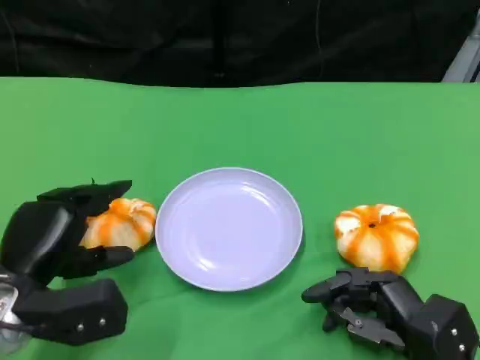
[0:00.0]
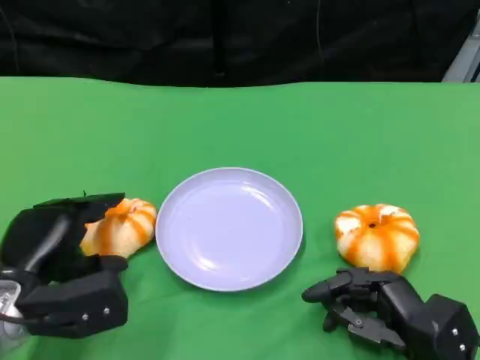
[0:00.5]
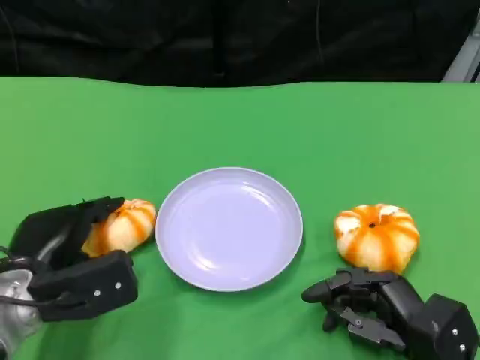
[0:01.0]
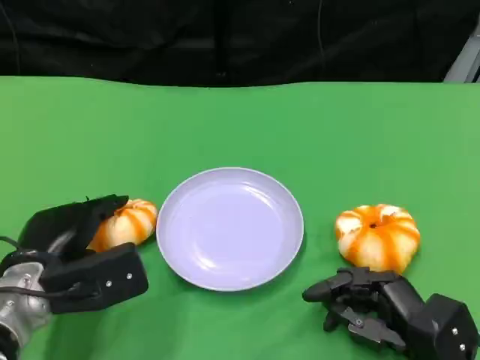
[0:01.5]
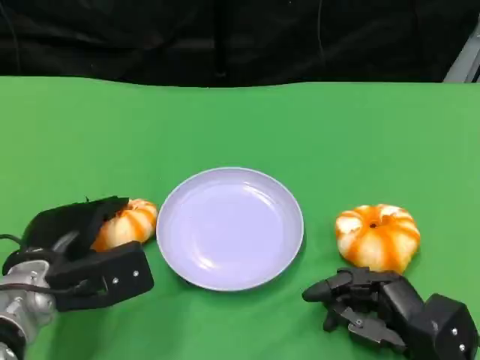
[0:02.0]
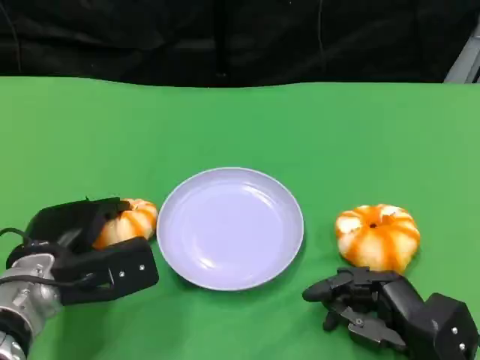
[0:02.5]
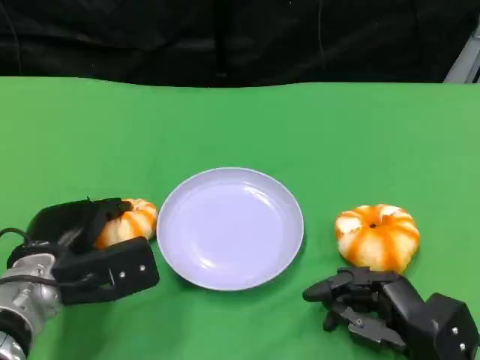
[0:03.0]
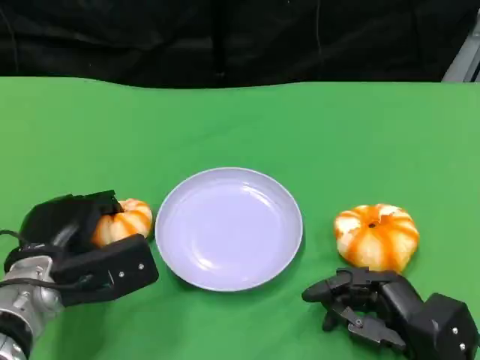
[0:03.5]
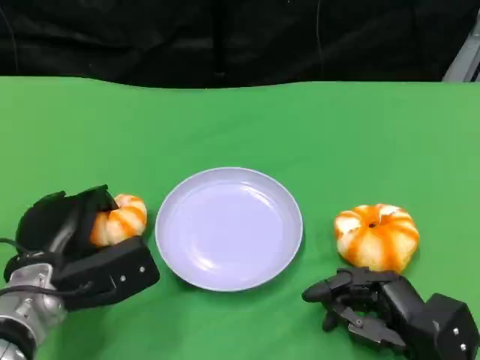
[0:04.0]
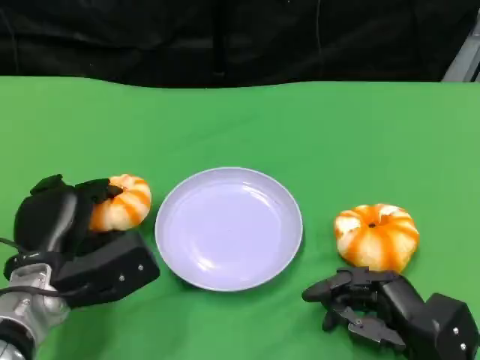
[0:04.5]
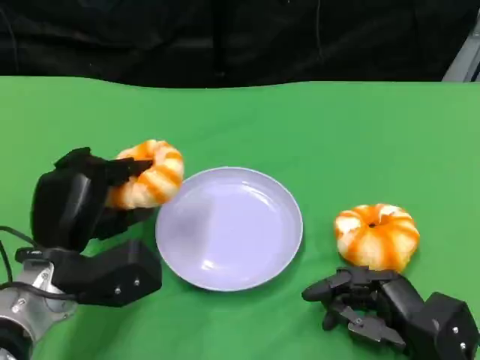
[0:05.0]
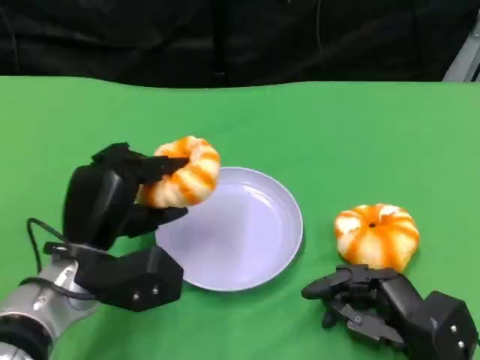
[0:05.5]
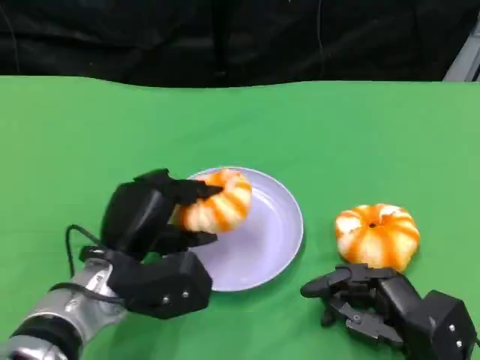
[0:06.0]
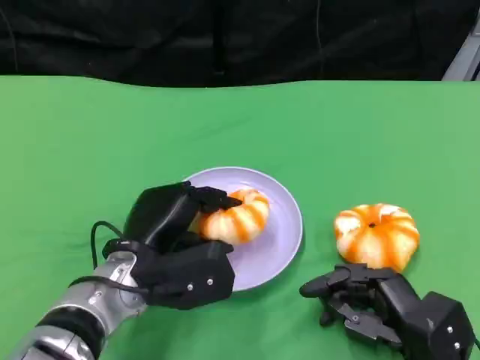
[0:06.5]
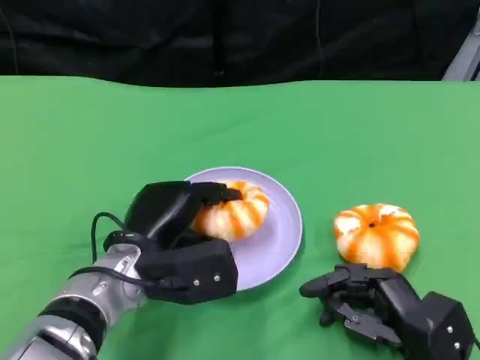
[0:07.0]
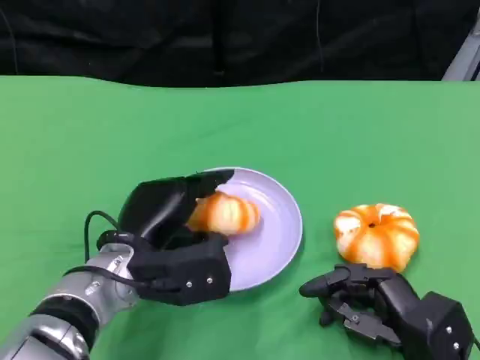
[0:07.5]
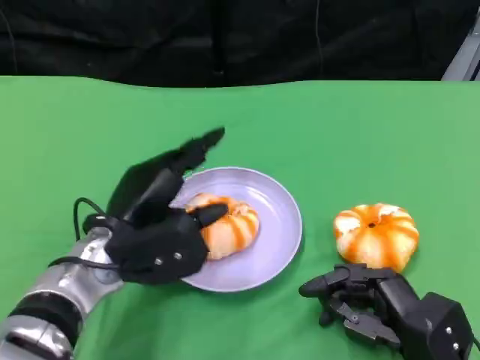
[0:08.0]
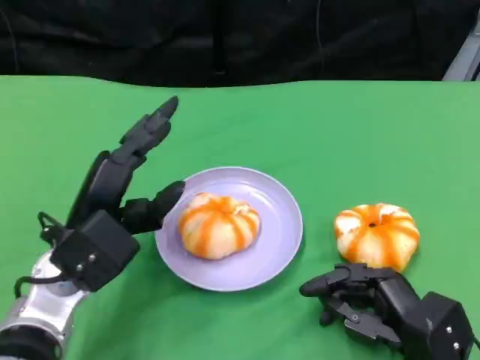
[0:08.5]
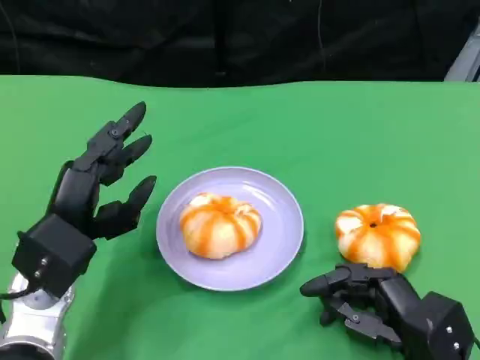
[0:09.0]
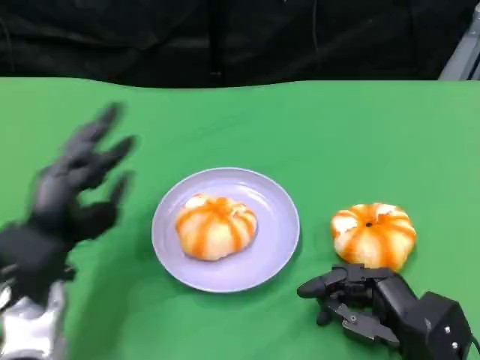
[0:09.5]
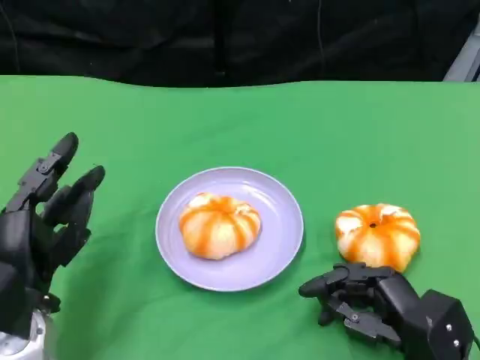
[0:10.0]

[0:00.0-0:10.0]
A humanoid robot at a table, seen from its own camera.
Task of the whole recording: Grasp the bread from the table and place it into the plate.
0:02.0 to 0:04.0: The hands stay close to where they were, moving slightly.
0:04.0 to 0:06.0: The left hand moves to the right, roughly 5 cm.
0:06.0 to 0:08.0: The hands move only a little.
0:08.0 to 0:10.0: The left hand goes about 10 cm to the left and backward.

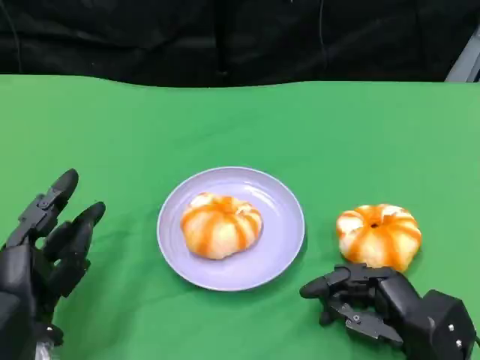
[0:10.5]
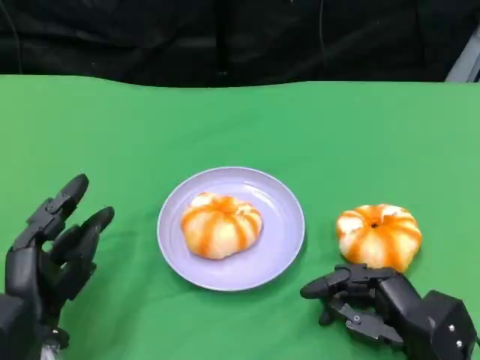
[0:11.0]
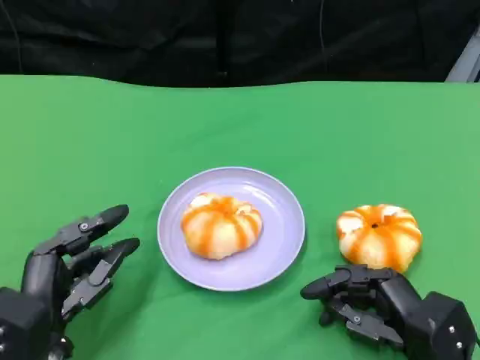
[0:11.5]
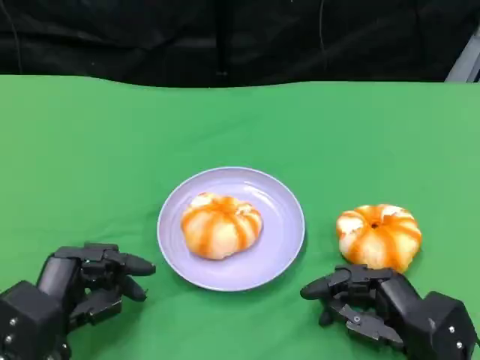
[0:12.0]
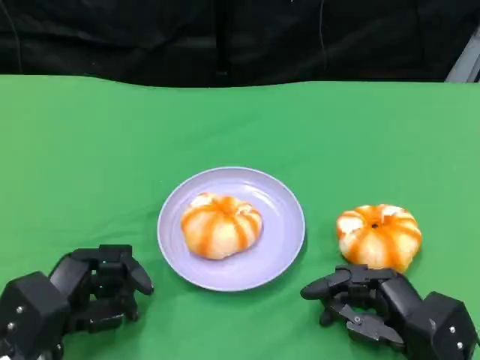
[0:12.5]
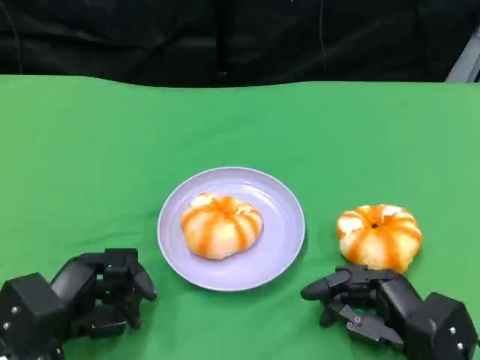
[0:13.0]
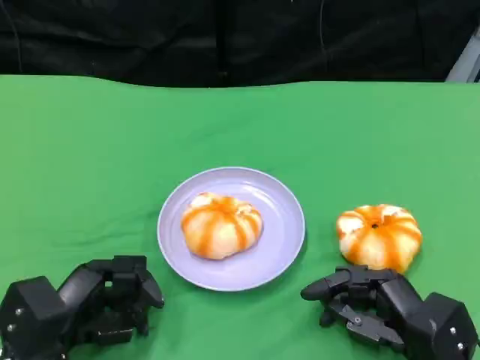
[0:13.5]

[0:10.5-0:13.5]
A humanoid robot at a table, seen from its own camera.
Task of the whole recording: Grasp the bread from the table and place it into the plate.
0:12.0 to 0:13.5: There are only small adjustments of the hands.

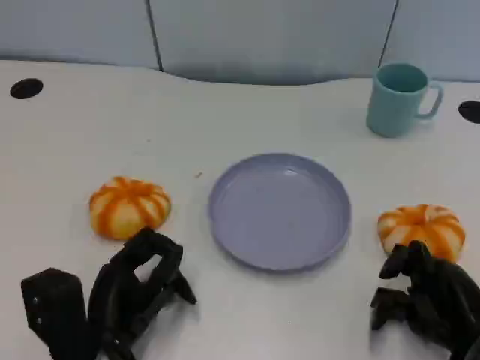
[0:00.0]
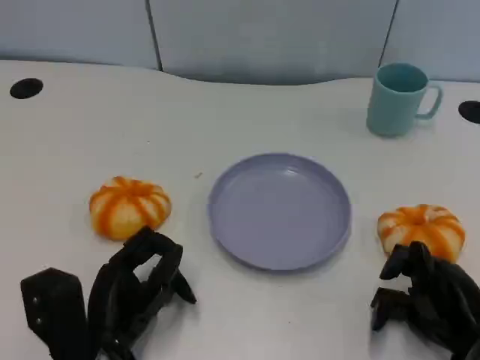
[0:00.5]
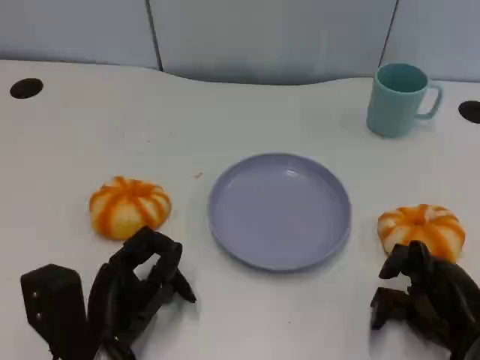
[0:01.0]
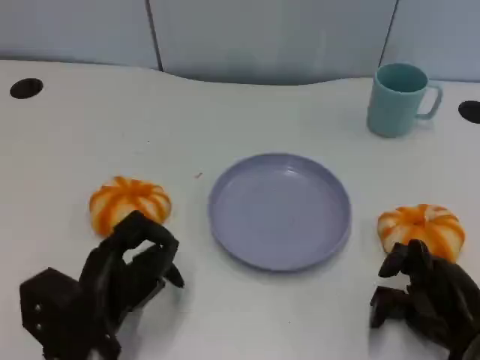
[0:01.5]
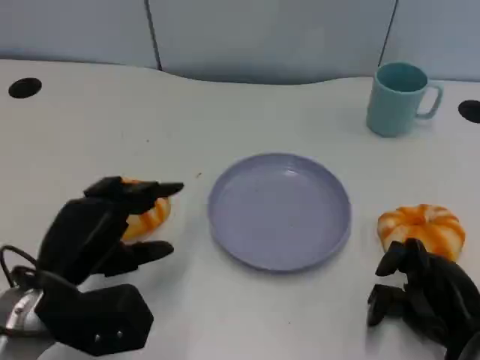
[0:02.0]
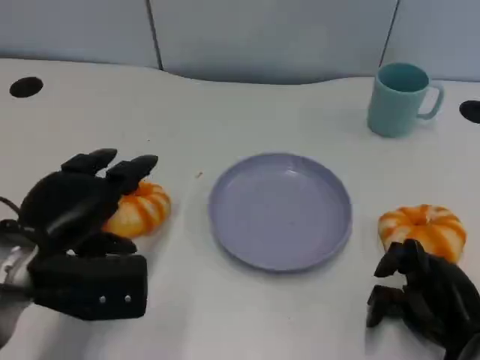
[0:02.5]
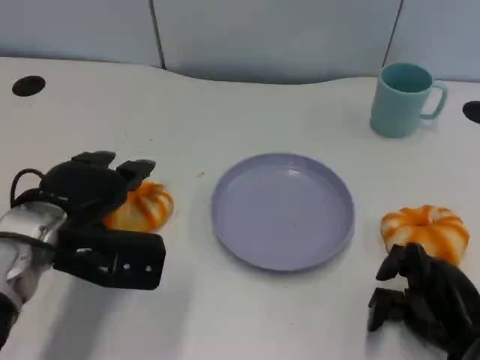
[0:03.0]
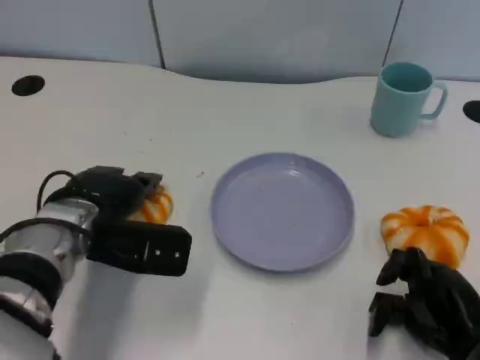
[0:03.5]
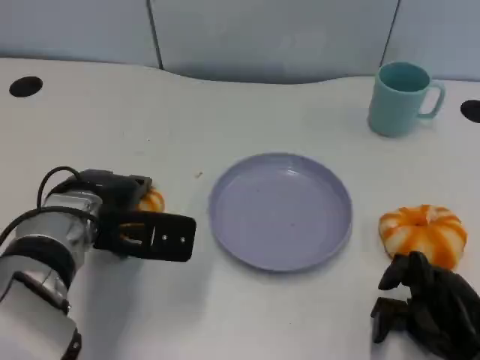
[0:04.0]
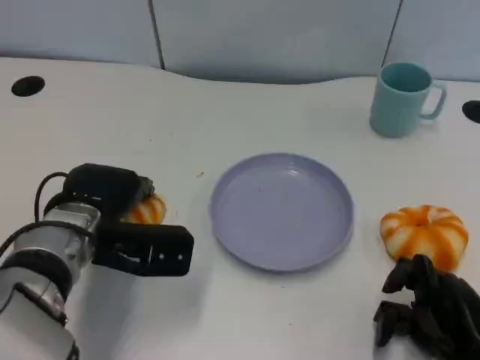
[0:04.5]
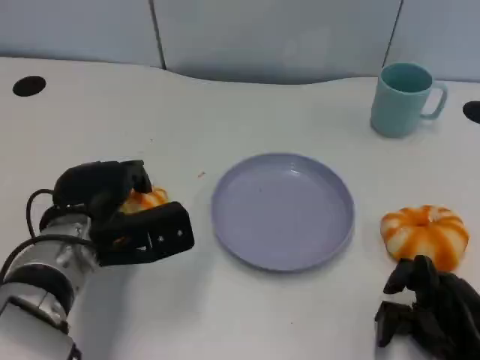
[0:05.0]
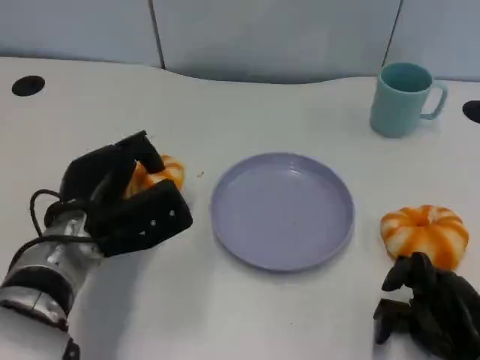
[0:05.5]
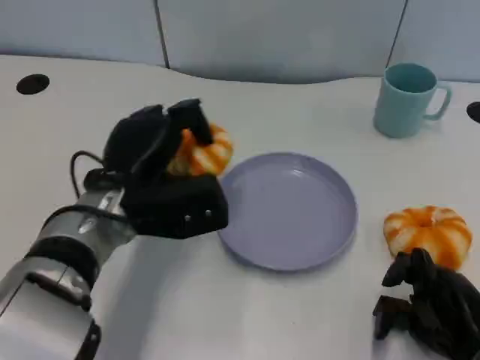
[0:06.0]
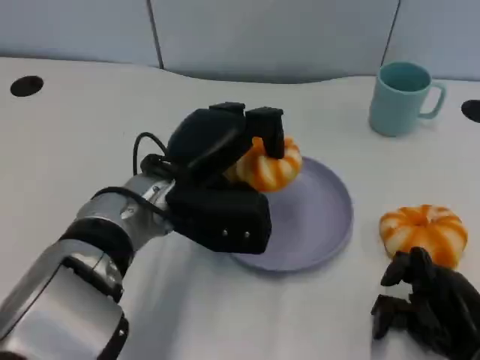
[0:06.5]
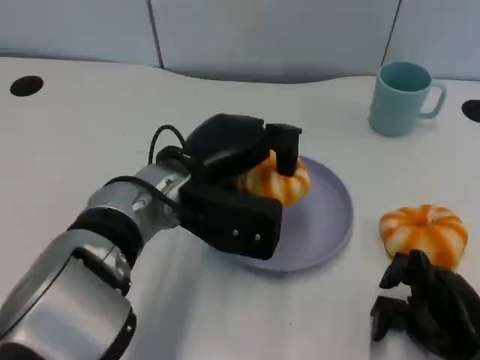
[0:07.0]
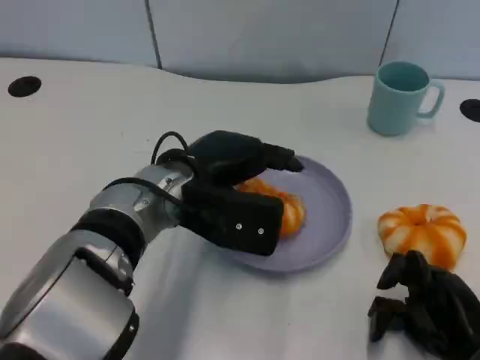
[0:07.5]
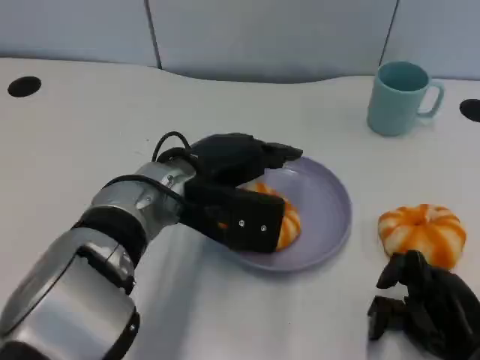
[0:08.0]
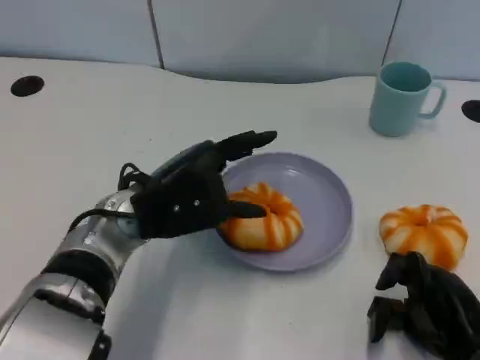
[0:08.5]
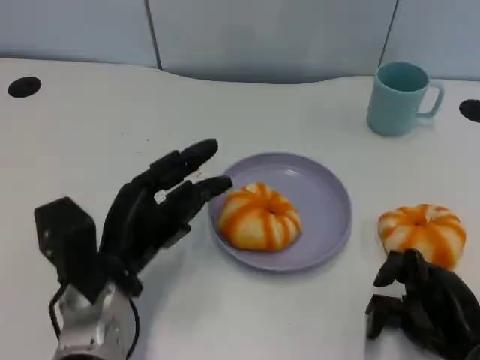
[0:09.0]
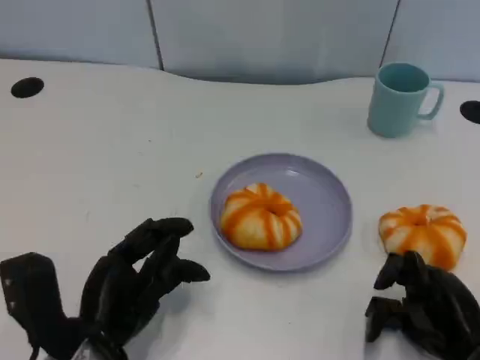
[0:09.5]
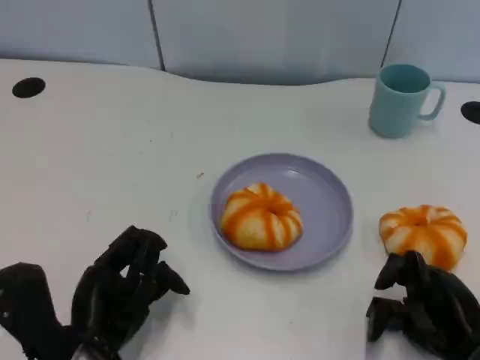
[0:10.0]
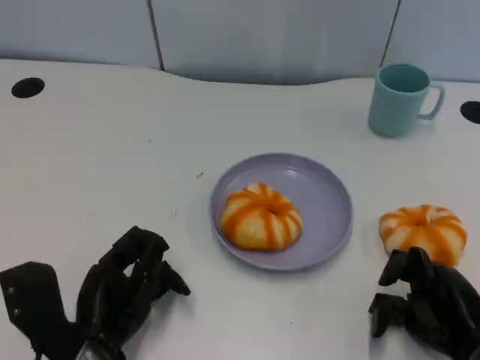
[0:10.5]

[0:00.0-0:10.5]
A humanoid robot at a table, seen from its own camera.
Task of the whole recording: Grasp the bread from the table and place it into the plate.
0:00.0 to 0:02.0: The left hand goes some 5 cm upward.
0:02.0 to 0:04.0: The left hand is displaced forward by roughly 10 cm.
0:04.0 to 0:06.5: The left hand heads to the right, covering approximately 10 cm.
0:08.5 to 0:10.5: The left hand heads backward, downward and to the left, covering some 15 cm.

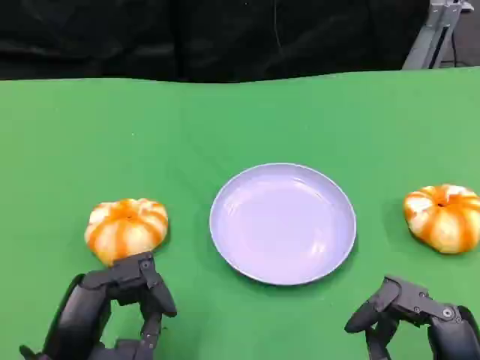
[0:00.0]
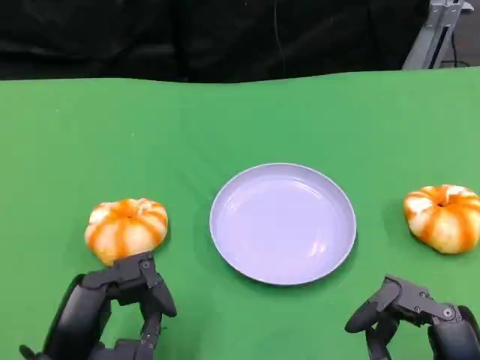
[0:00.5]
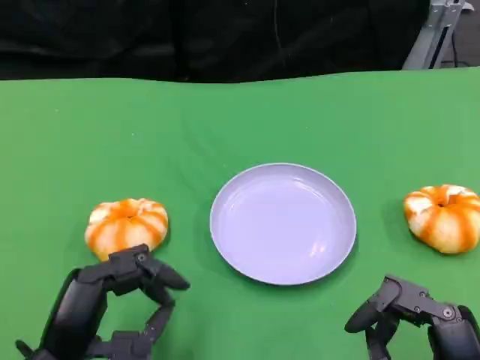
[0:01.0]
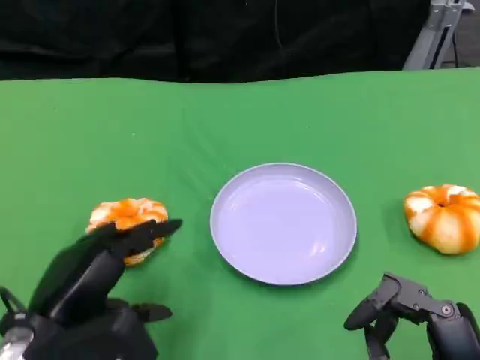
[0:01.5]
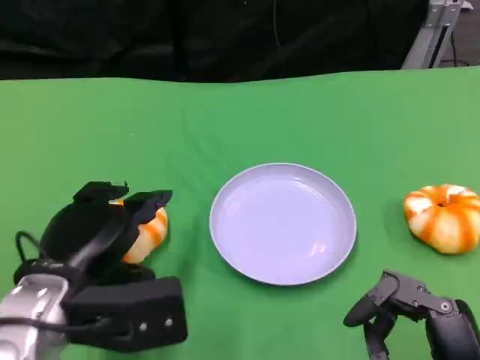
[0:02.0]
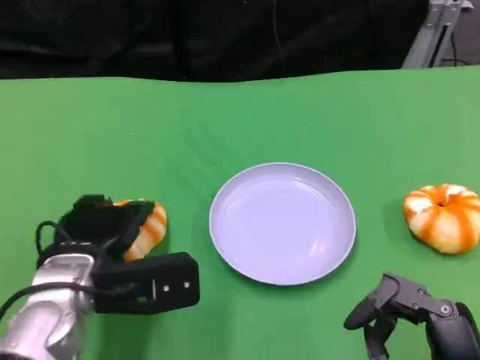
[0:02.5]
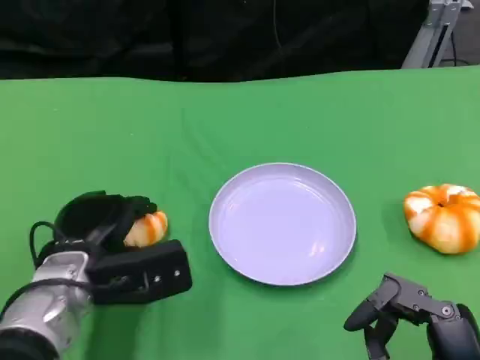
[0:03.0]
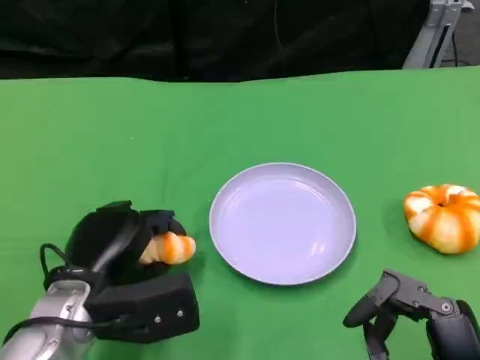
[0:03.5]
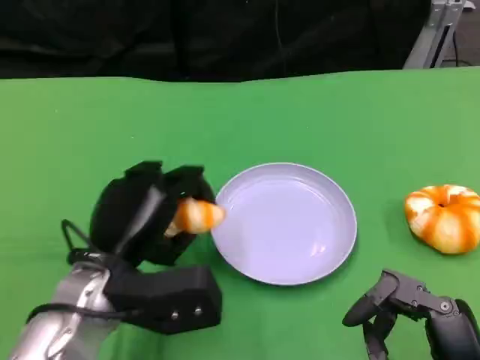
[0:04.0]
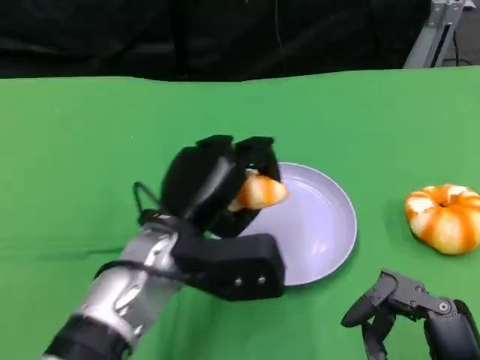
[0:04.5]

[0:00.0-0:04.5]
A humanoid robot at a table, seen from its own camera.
Task of the whole recording: Grasp the bread from the table and place it into the plate.
0:00.0 to 0:02.0: The left hand goes roughly 10 cm forward and upward.
0:02.0 to 0:04.5: The left hand travels to the right by roughly 10 cm.
